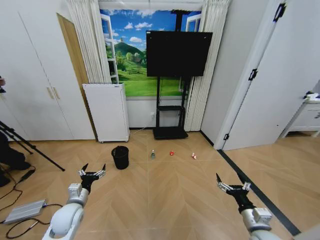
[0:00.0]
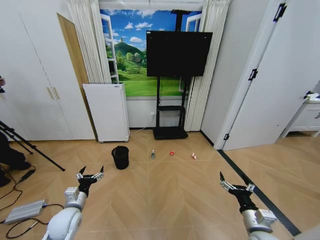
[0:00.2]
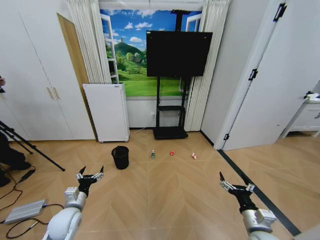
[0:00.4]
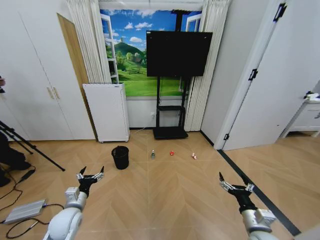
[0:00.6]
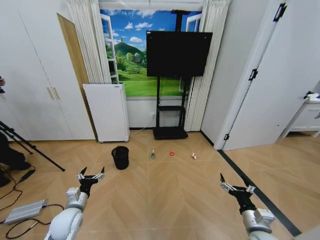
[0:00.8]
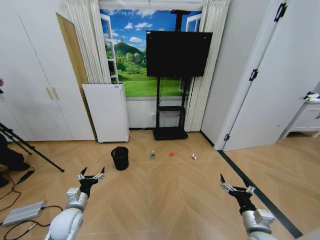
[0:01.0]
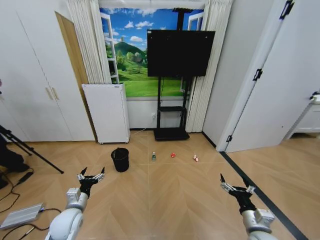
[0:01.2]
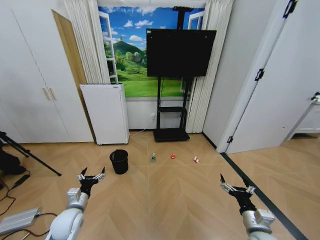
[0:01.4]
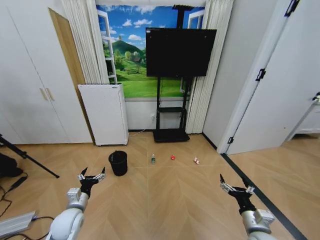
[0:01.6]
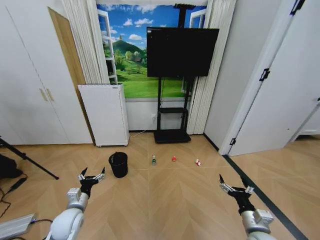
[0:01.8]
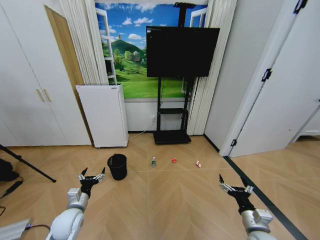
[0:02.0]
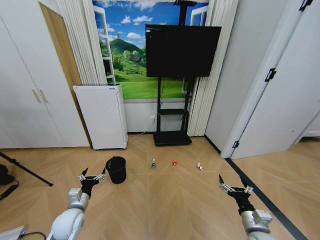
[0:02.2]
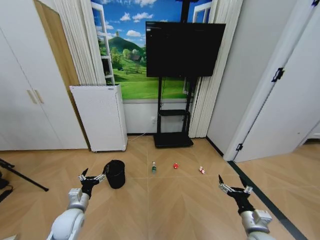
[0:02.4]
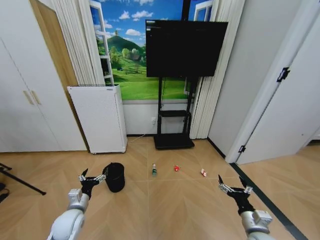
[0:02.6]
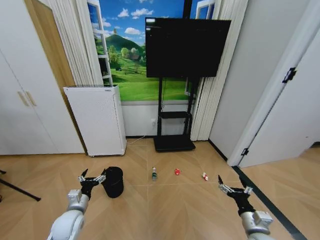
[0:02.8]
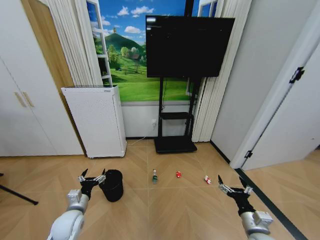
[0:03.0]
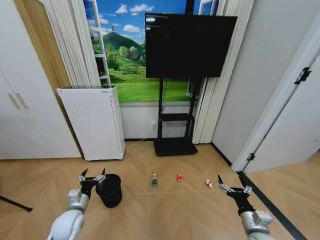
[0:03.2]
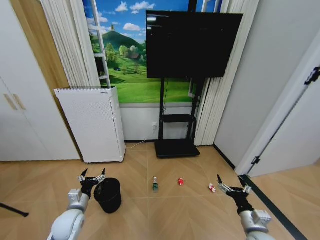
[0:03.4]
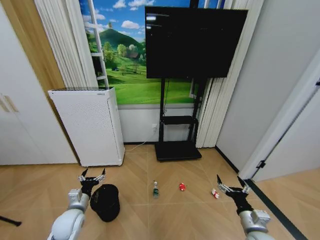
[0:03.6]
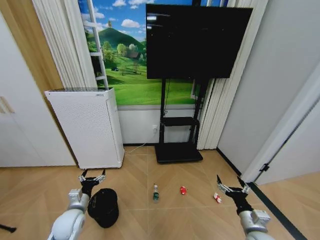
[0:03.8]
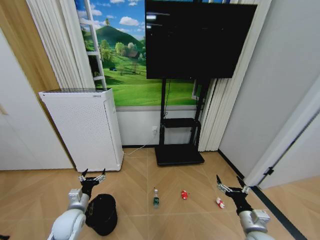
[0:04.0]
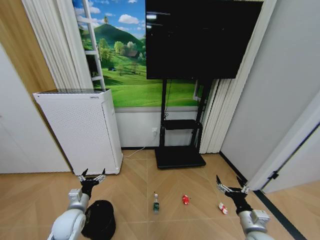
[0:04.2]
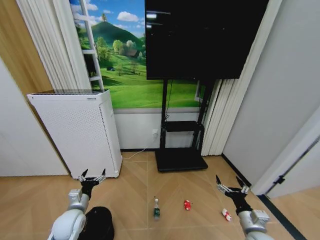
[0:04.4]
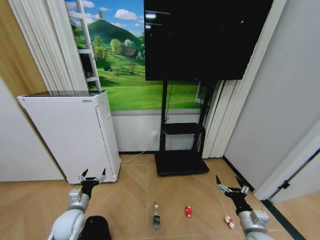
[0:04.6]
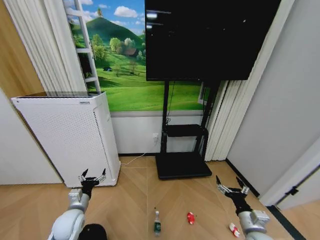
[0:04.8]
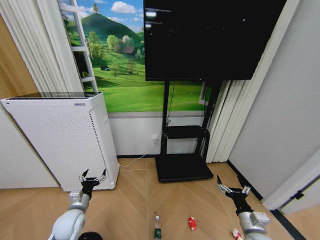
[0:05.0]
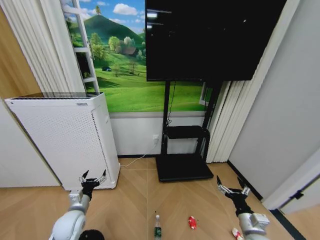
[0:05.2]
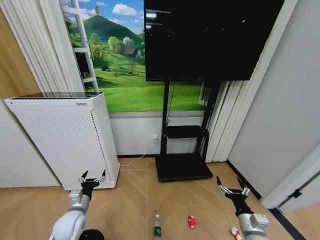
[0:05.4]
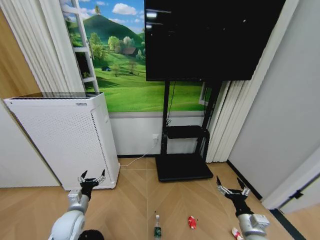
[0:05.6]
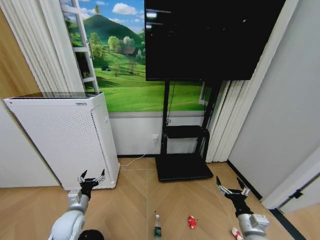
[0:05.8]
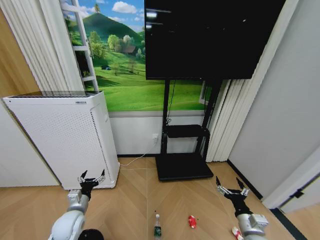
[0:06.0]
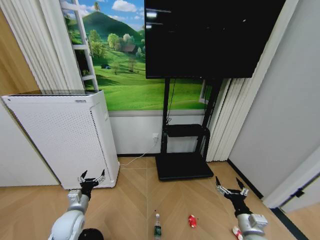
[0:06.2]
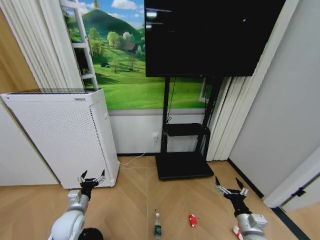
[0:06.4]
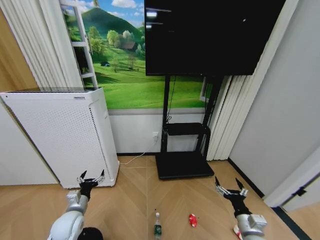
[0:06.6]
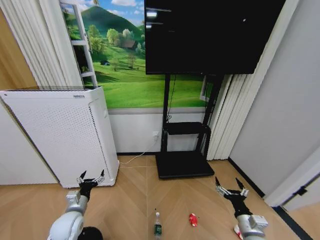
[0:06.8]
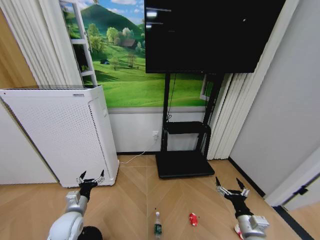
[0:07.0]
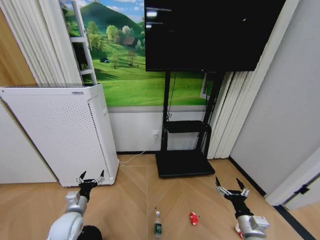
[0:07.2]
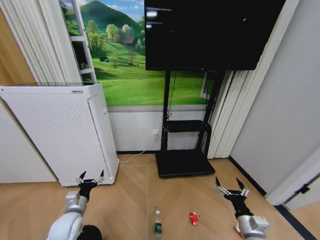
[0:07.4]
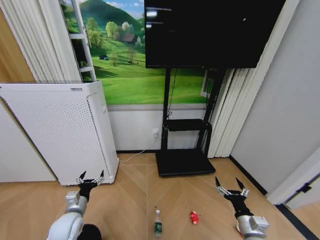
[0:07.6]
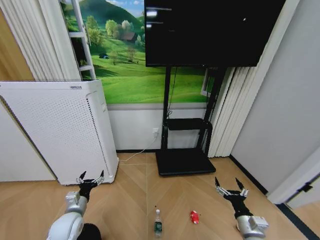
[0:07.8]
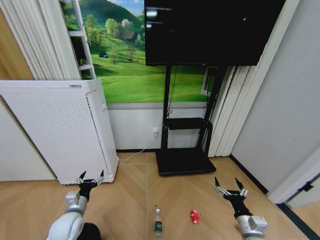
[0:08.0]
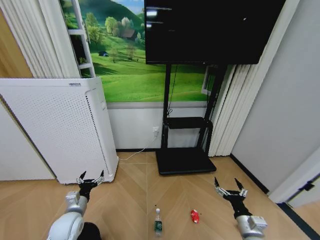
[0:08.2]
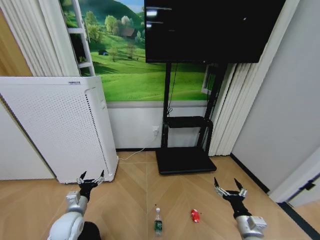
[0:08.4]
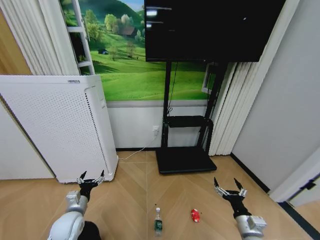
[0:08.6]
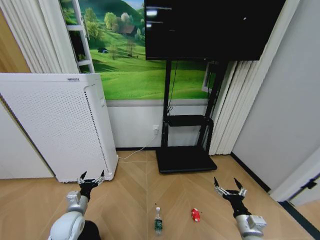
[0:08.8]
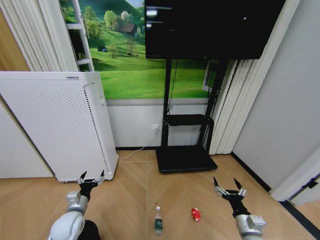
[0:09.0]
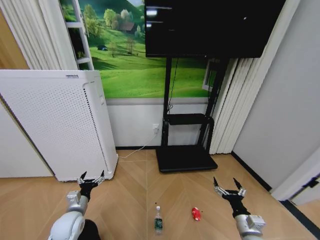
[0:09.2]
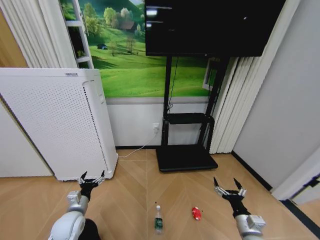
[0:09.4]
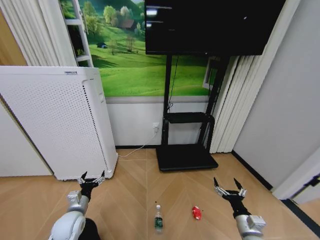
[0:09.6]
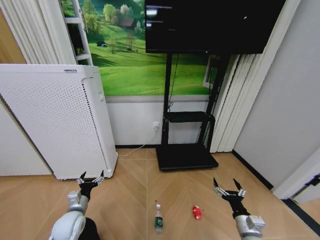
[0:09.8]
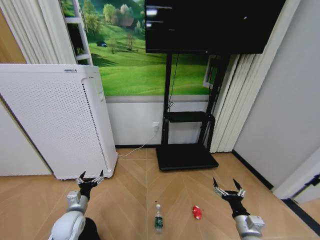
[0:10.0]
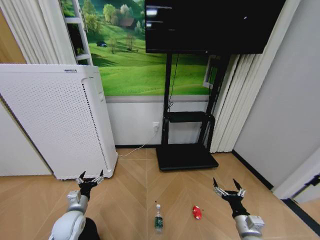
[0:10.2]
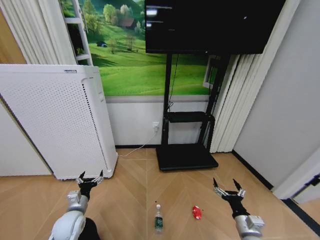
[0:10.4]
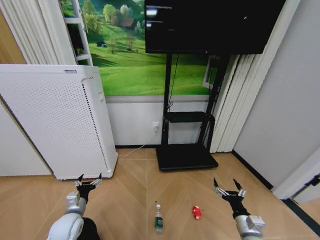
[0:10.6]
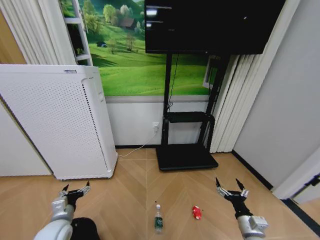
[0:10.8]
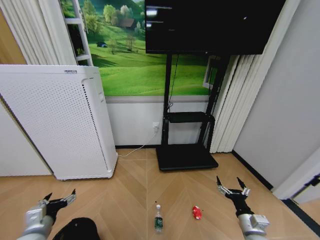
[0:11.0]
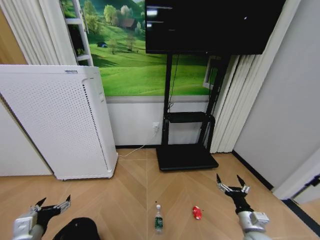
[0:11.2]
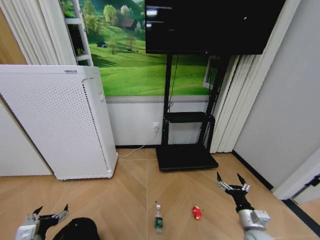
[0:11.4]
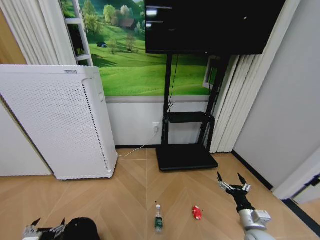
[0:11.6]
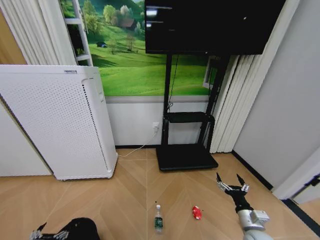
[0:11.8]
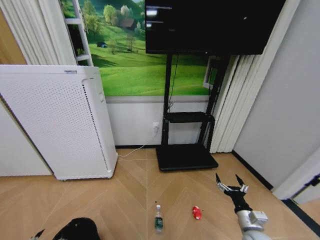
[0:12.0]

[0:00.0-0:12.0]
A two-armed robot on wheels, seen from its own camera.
Task of the whole recording: Pick up the trash bin and place the garbage on the floor into it.
0:06.0 to 0:10.4: Both grippers stay about where they are.
0:10.4 to 0:12.0: The left gripper is displaced backward and to the left by approximately 20 cm.

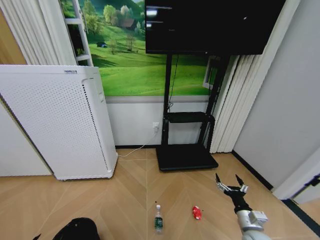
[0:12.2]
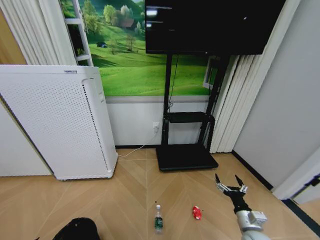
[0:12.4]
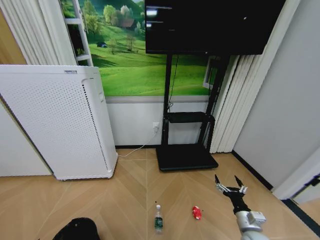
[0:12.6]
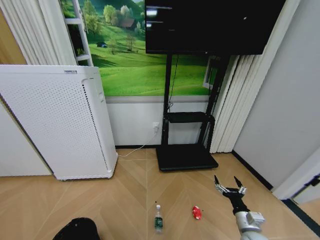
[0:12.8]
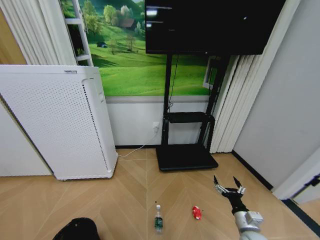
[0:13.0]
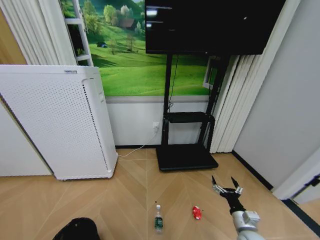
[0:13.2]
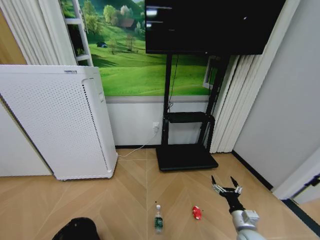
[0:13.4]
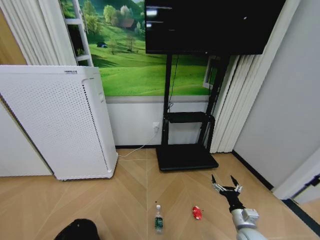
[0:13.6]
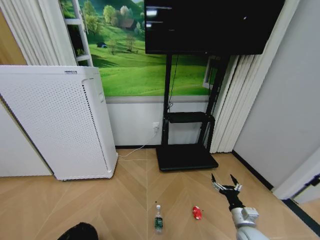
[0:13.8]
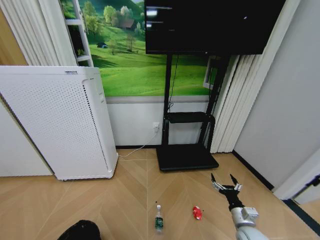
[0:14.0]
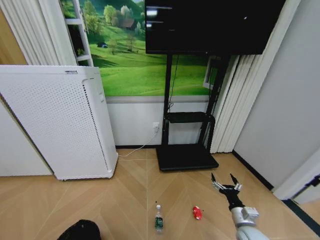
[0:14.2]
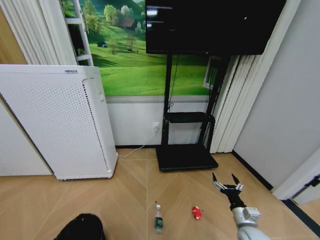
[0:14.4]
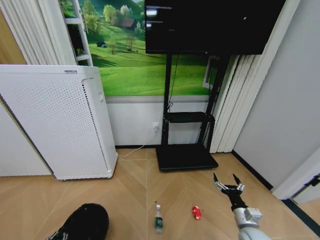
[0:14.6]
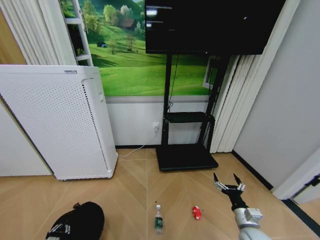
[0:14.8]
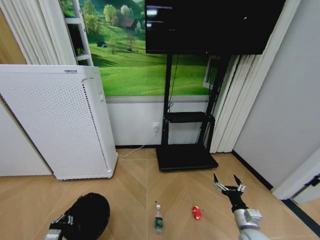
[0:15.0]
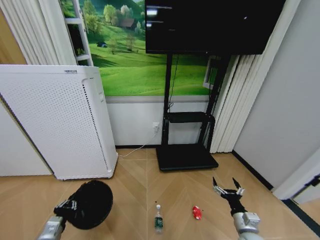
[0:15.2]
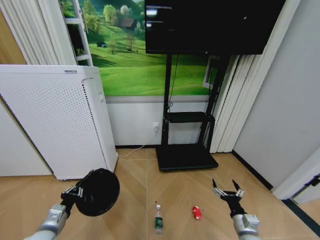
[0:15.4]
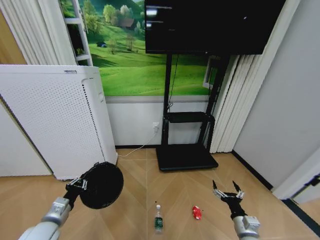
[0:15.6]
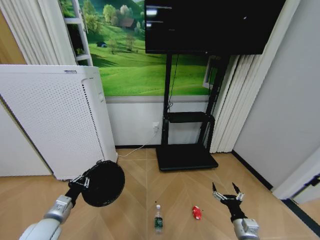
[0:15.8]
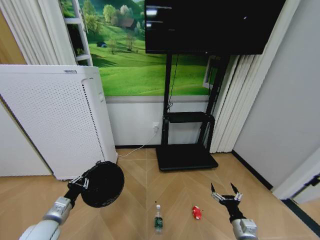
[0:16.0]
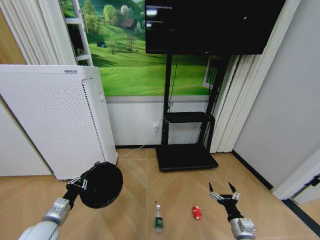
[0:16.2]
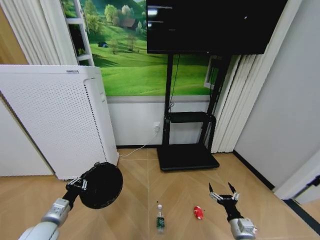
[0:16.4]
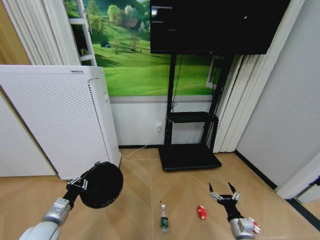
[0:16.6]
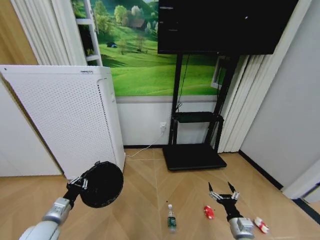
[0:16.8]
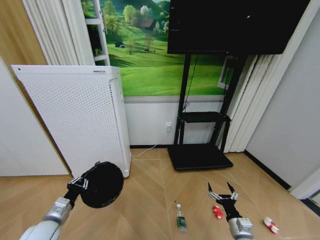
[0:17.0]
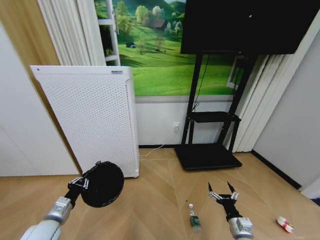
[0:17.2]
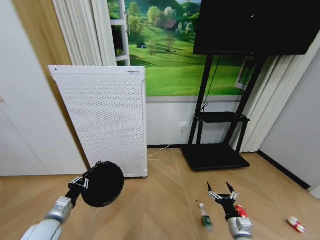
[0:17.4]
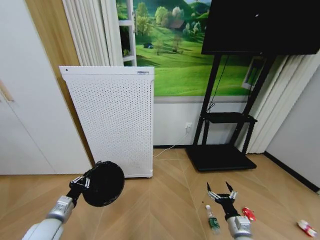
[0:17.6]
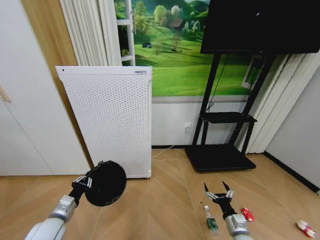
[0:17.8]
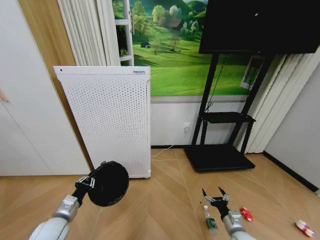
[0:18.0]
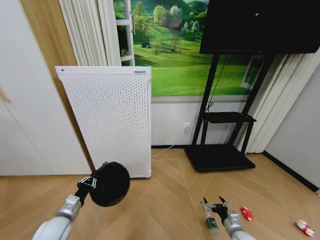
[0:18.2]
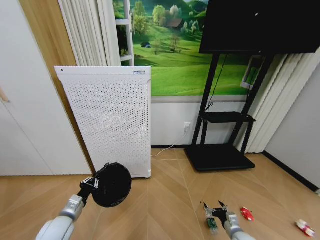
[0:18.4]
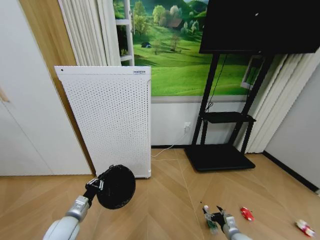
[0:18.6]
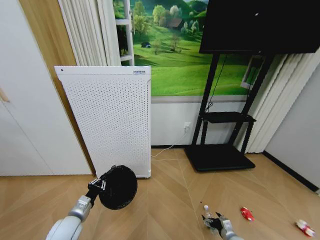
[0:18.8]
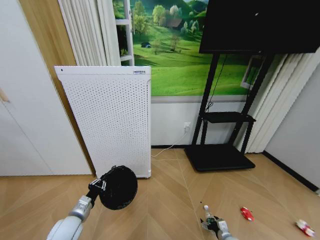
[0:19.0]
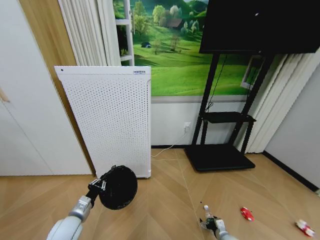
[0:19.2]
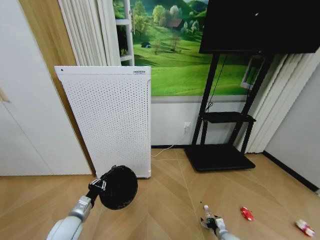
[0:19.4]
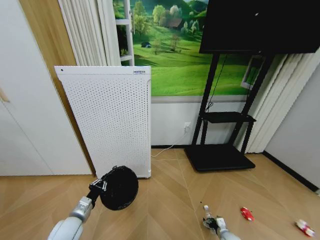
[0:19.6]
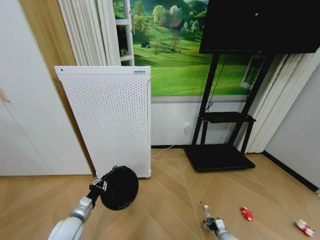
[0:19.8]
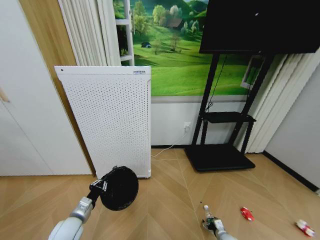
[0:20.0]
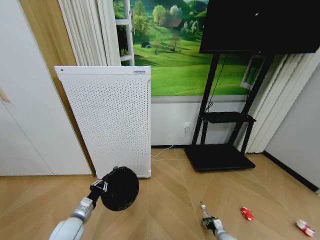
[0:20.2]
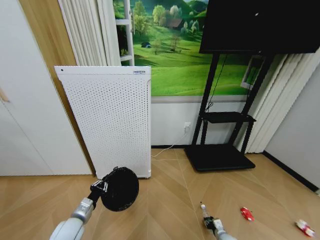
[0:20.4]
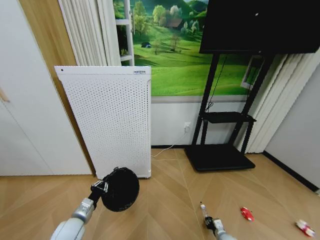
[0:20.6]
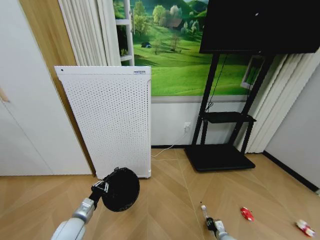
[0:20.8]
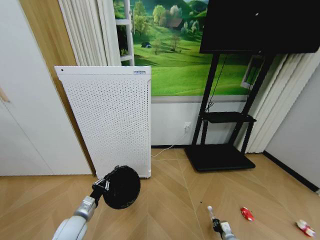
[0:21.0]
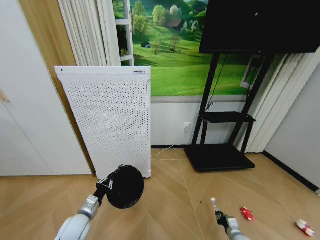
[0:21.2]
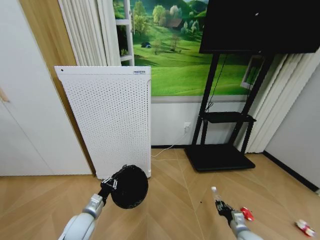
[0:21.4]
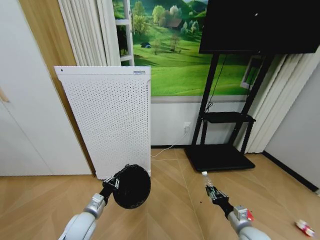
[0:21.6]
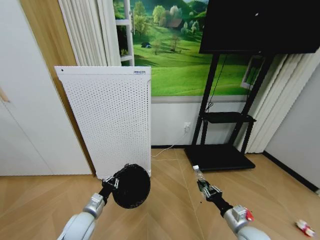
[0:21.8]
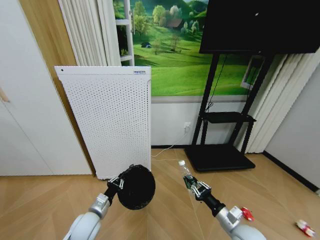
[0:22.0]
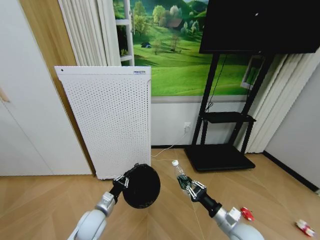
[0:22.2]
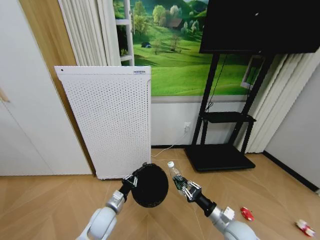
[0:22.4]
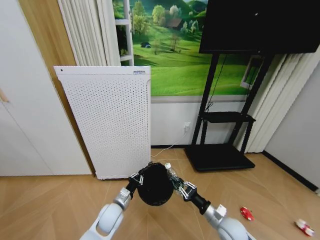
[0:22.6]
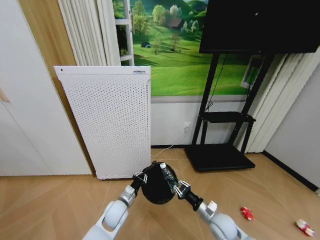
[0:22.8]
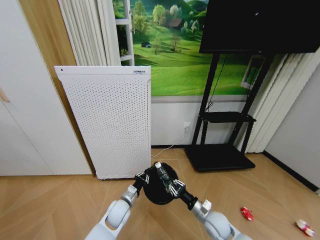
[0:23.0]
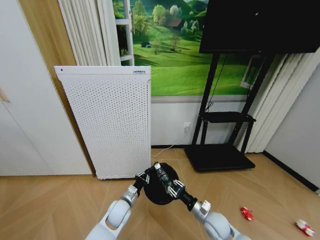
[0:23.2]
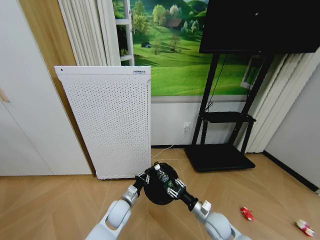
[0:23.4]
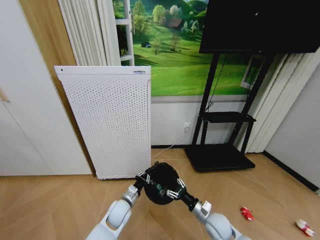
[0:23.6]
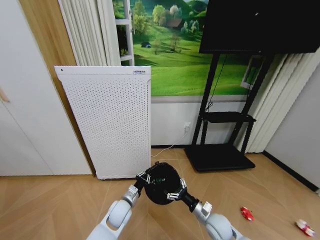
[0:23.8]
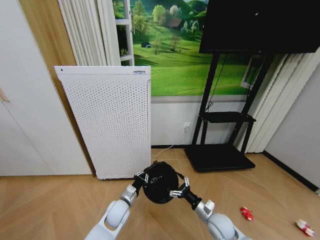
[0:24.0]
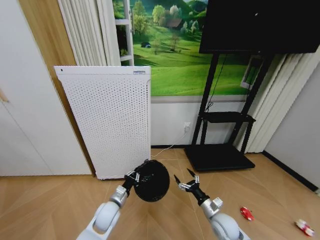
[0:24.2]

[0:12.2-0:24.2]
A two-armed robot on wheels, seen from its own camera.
Task of the whole recording: Pick up the trash bin and place the garbage on the floor into it.
0:13.8 to 0:15.2: The left gripper goes approximately 10 cm upward and forward, and closes.
0:15.2 to 0:16.6: The left gripper moves upward, about 5 cm.
0:16.6 to 0:18.2: The right gripper shifts by approximately 5 cm.
0:18.2 to 0:19.8: The right gripper goes some 15 cm downward.
0:19.8 to 0:21.2: The right gripper travels upward by approximately 5 cm, and closes up.
0:21.2 to 0:22.6: The right gripper travels upward and to the left by some 20 cm. Meanwhile the left gripper travels to the right by about 10 cm.
0:22.6 to 0:24.2: The right gripper opens.
